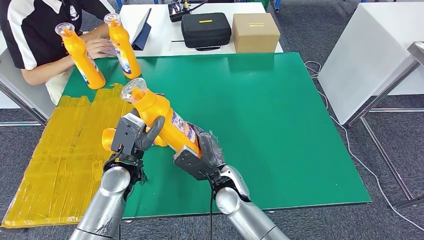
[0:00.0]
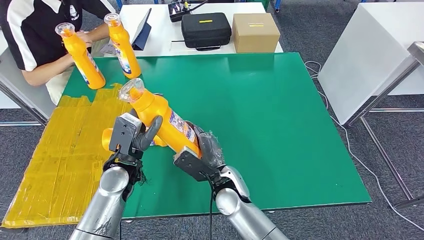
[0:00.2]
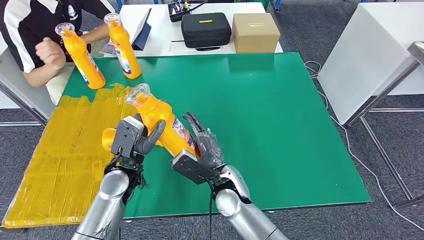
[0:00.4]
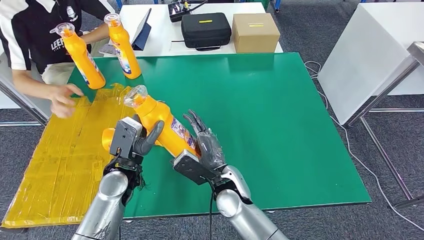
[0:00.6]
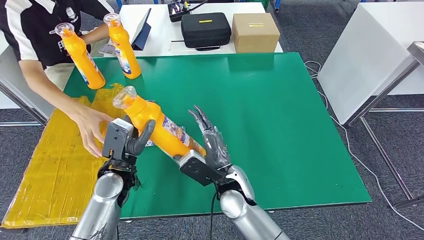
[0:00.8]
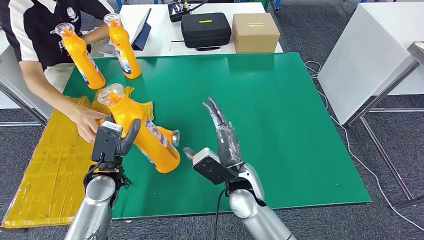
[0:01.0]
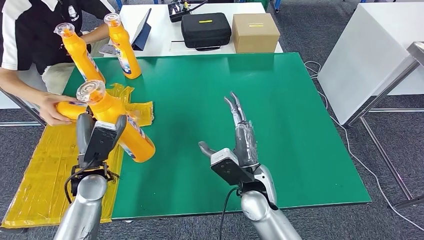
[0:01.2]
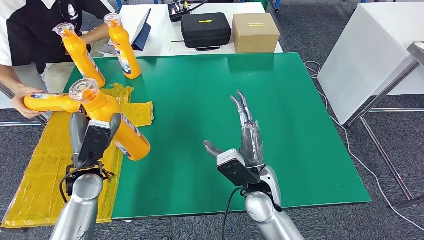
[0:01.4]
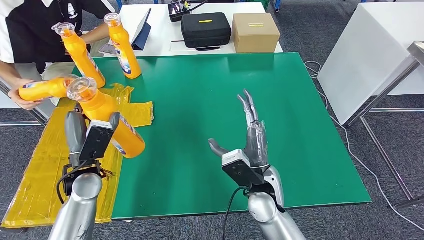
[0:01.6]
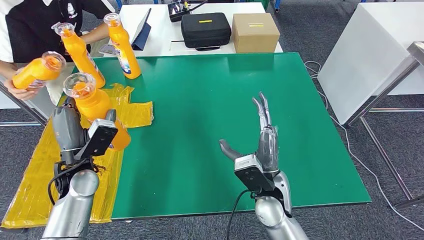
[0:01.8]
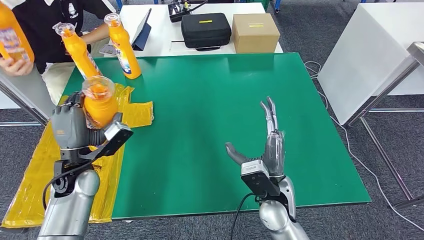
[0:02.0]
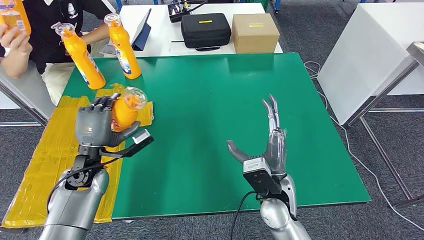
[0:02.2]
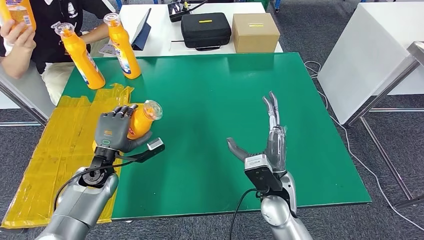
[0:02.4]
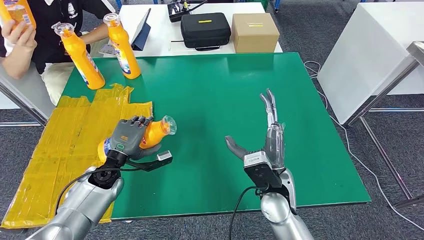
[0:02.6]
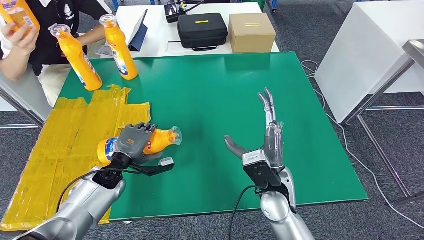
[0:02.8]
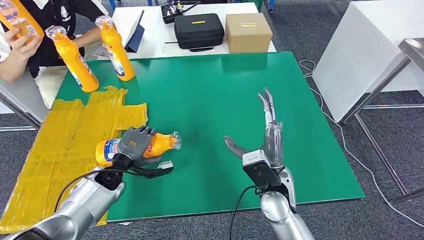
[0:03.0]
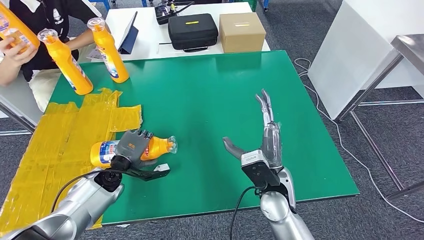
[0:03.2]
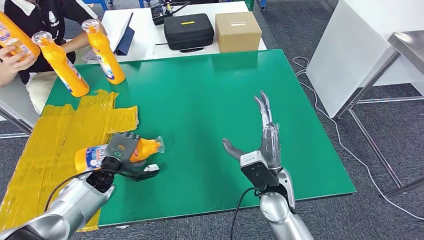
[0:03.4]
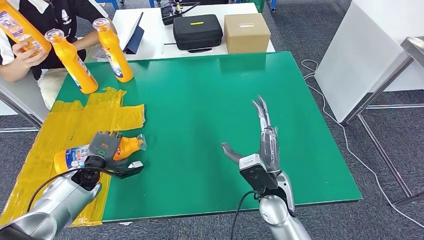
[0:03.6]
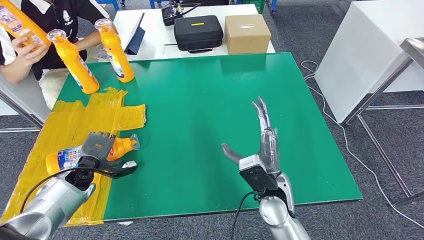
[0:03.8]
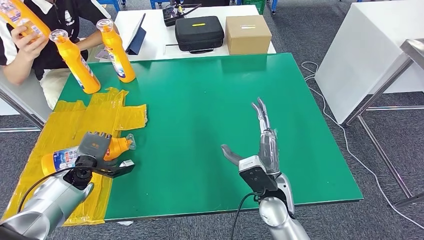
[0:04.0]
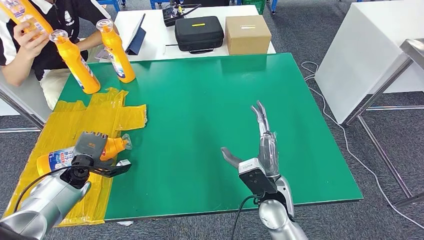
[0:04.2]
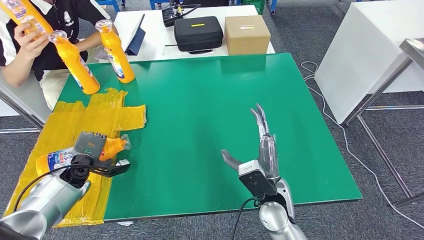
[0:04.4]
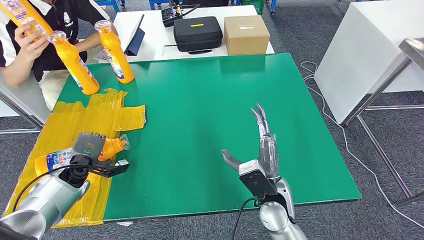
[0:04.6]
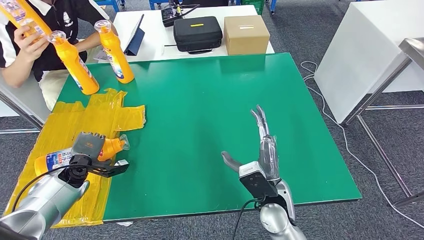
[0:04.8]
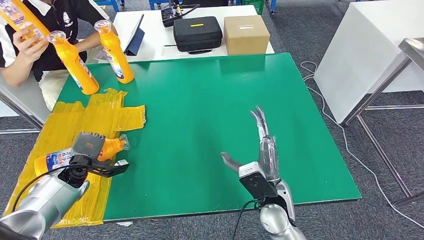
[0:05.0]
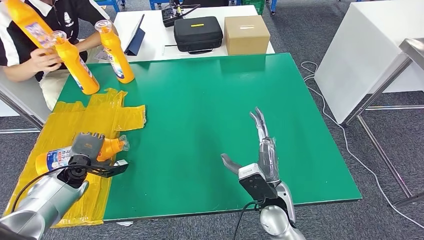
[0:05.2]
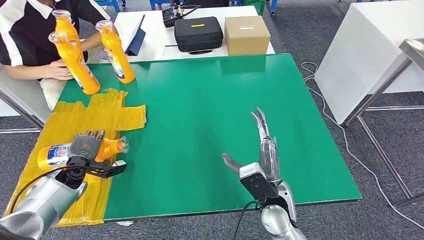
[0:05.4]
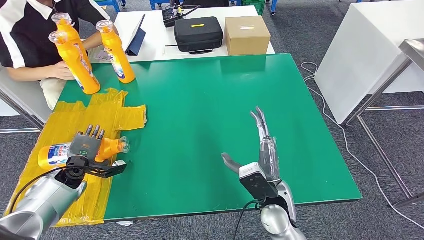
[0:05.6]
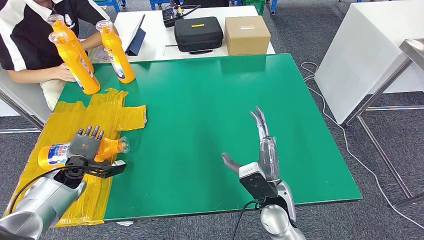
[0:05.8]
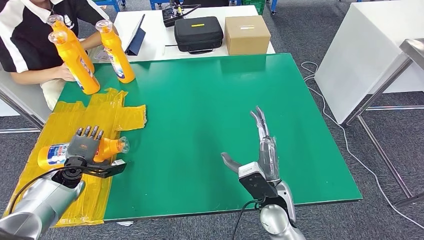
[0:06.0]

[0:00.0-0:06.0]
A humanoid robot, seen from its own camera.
Step, 0:00.0 to 0:06.0: Flip the bottle to face forward.
0:04.4 to 0:06.0: The hands stay close to where they were, moving slightly.
